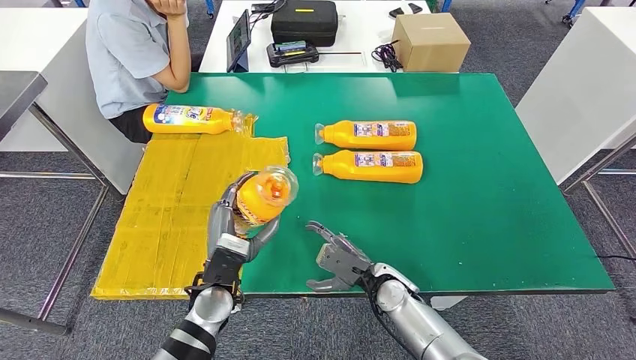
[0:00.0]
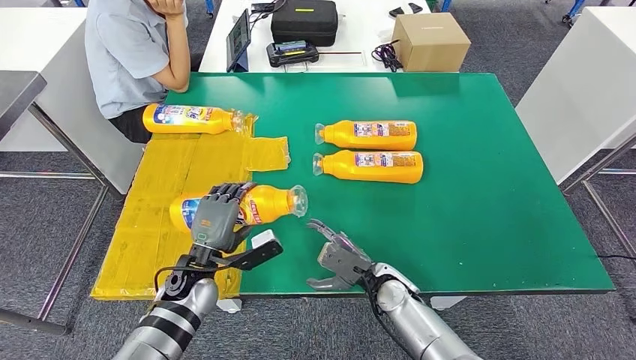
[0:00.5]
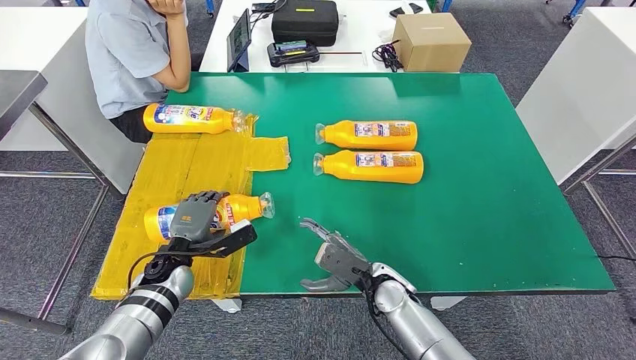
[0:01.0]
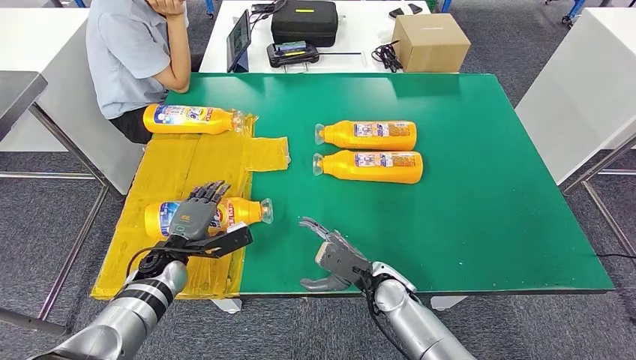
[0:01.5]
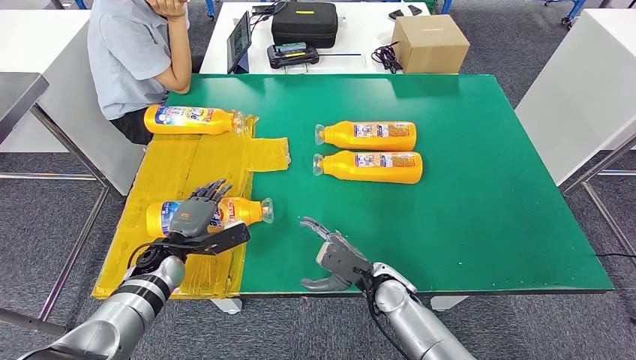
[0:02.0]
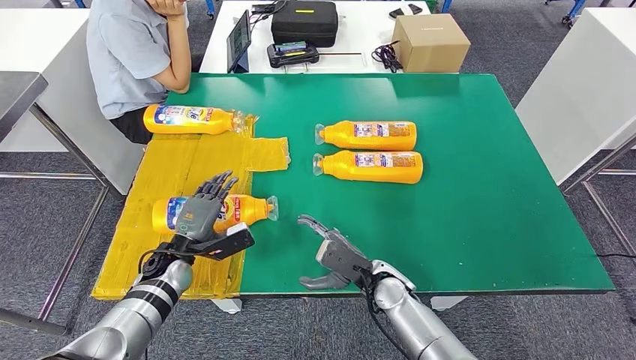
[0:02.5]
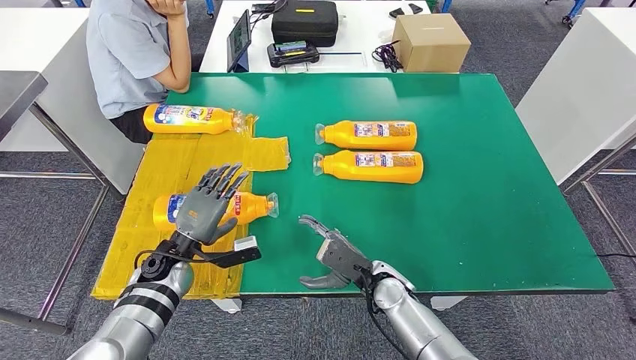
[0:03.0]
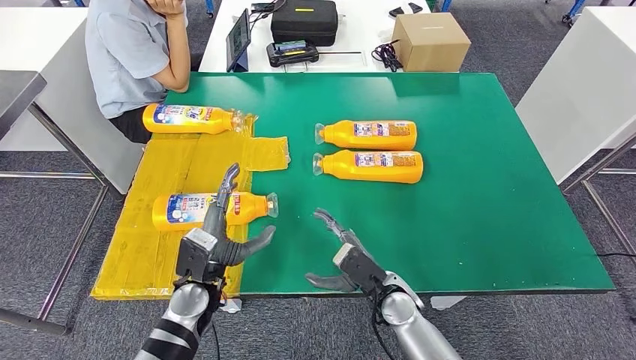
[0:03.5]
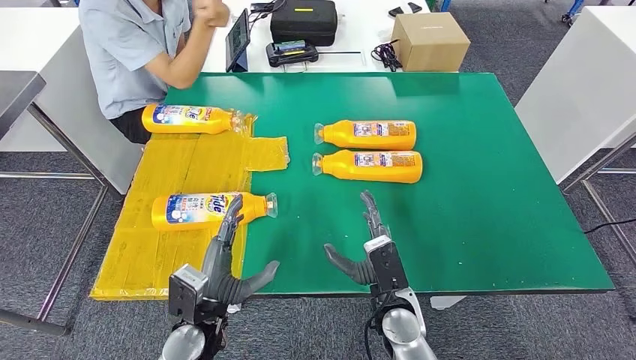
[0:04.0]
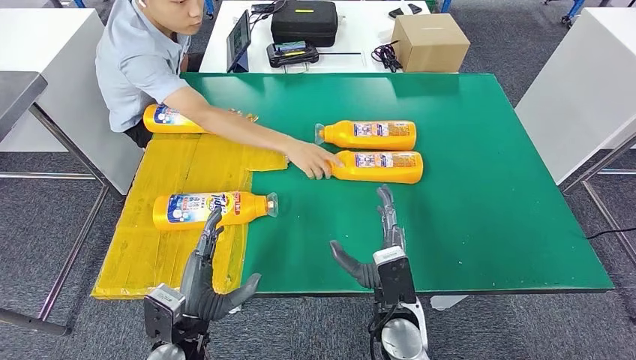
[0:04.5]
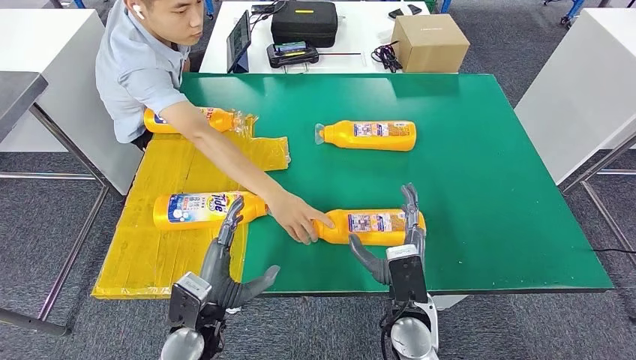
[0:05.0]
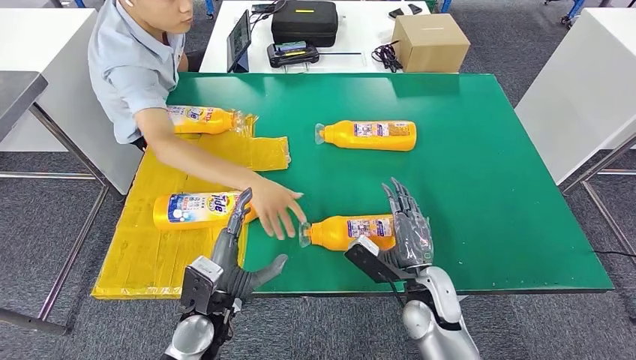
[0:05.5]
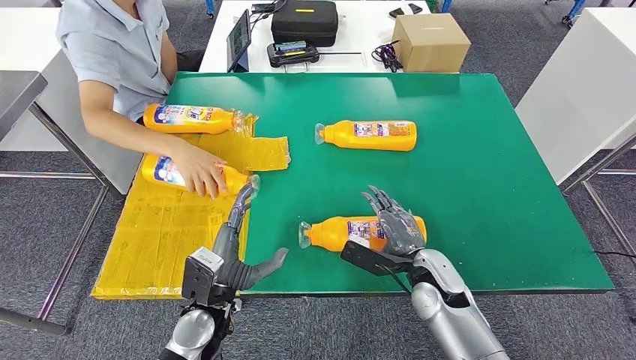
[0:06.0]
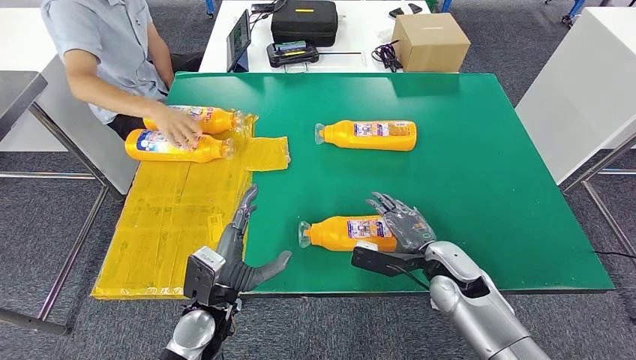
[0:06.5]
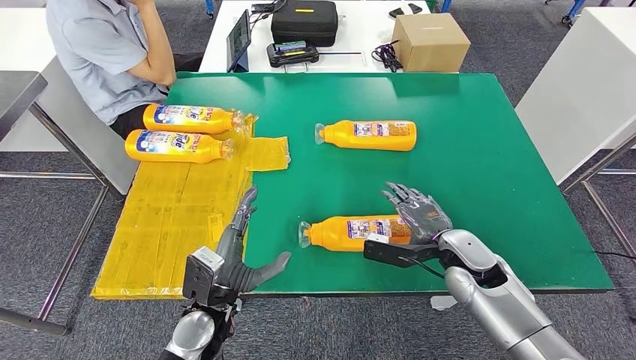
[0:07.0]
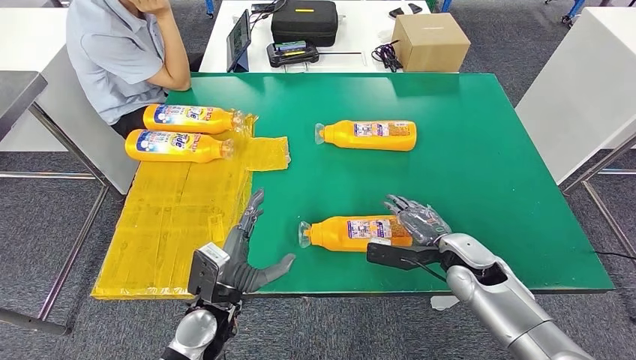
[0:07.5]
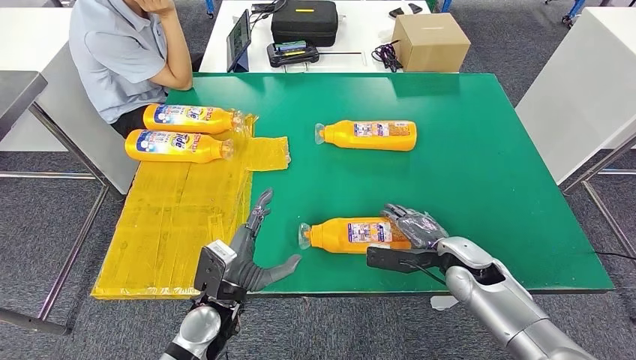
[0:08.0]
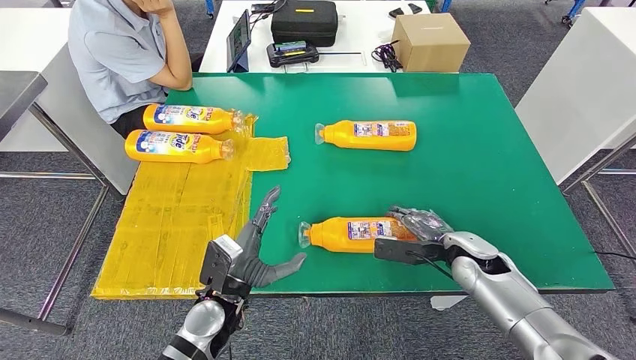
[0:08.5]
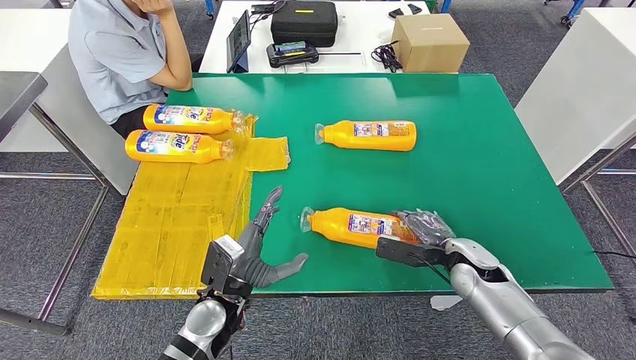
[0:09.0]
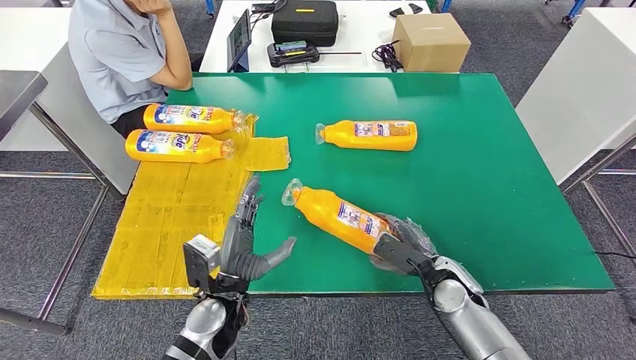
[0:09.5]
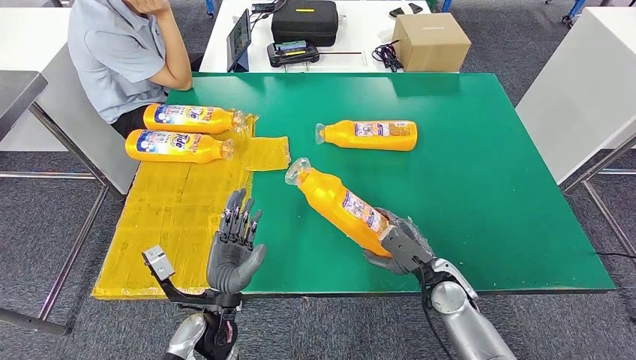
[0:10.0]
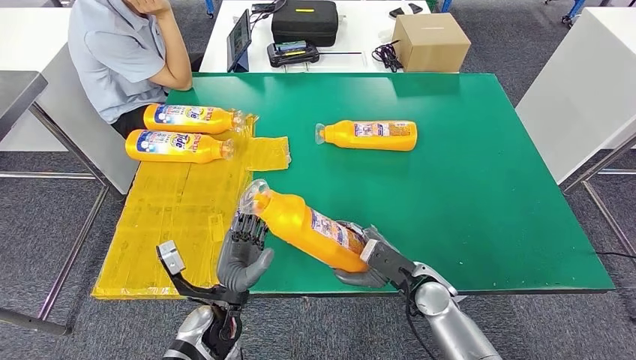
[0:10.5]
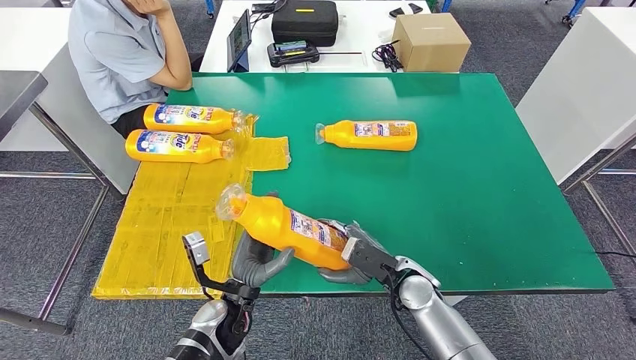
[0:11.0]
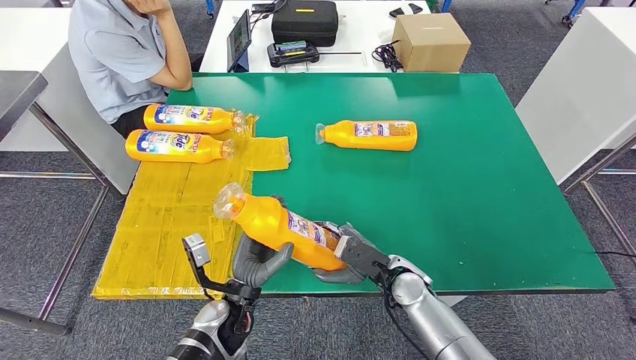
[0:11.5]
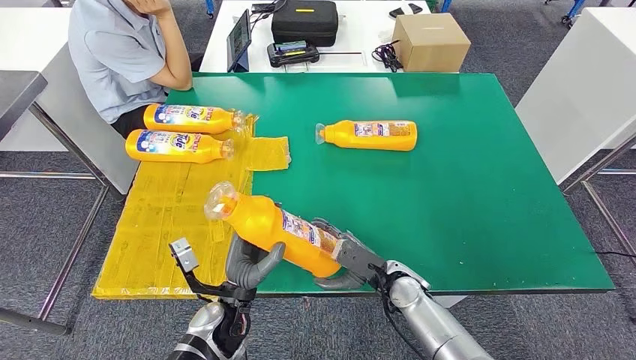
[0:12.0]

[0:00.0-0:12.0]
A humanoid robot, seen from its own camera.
Step, 0:02.0 to 0:10.0: Pick up the fast-moving consumer goods bottle from the table.
0:00.0 to 0:02.0: The left hand shifts about 15 cm to the left and forward.
0:02.0 to 0:04.0: The right hand travels backward by approximately 5 cm. The left hand goes some 15 cm backward and to the right.
0:06.0 to 0:08.0: The right hand shifts roughly 5 cm to the right.
0:08.0 to 0:10.0: The right hand moves approximately 5 cm.
0:10.0 to 0:12.0: The right hand moves to the left, roughly 5 cm.

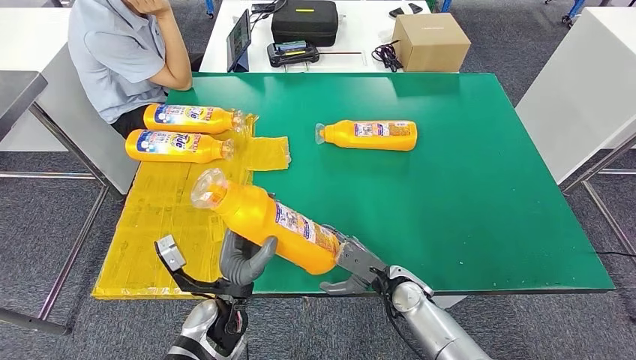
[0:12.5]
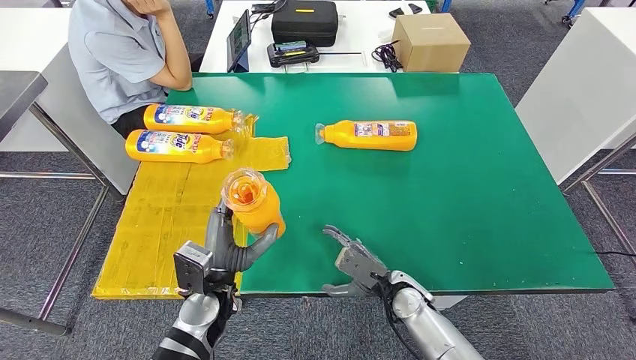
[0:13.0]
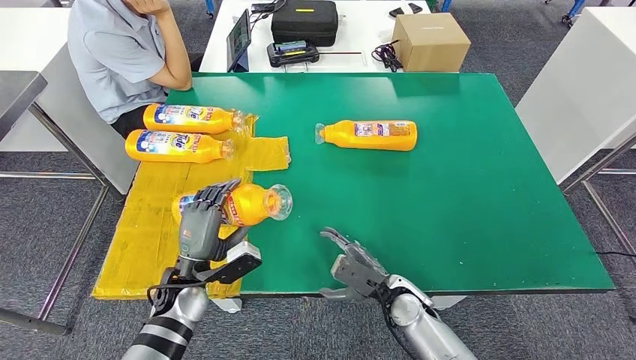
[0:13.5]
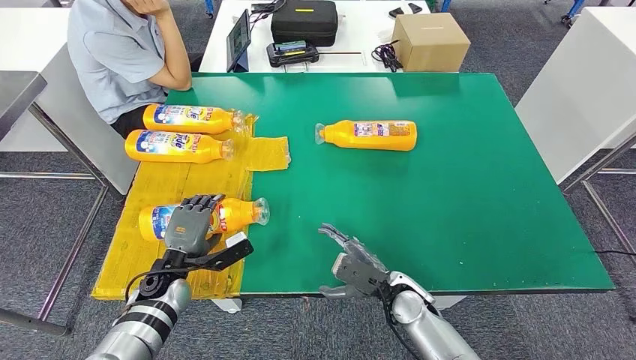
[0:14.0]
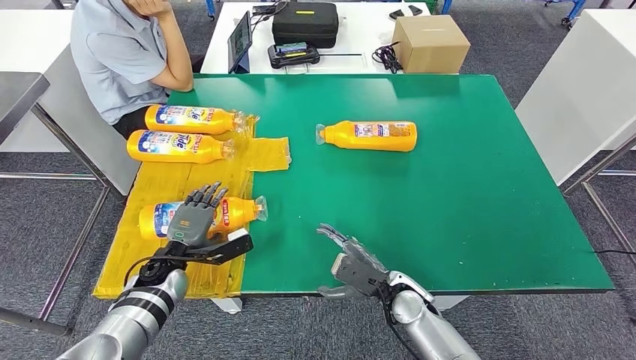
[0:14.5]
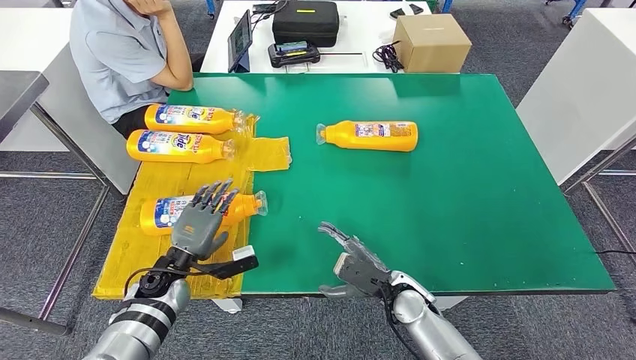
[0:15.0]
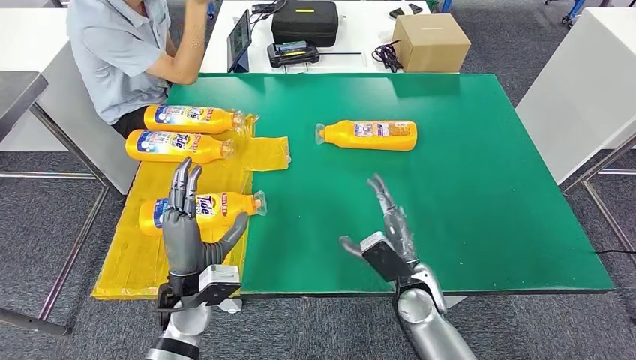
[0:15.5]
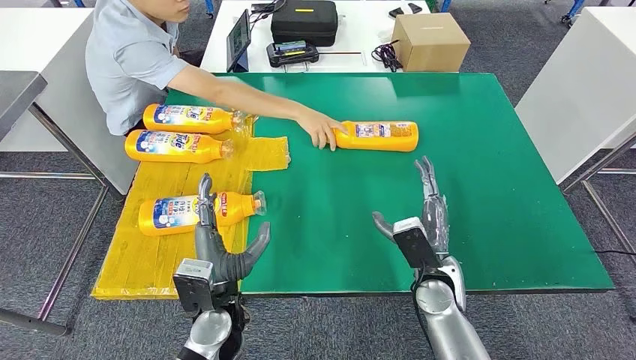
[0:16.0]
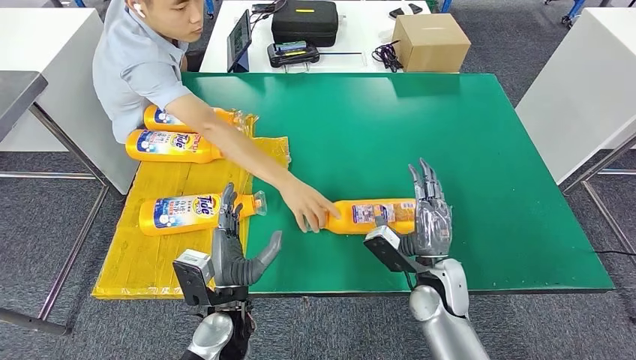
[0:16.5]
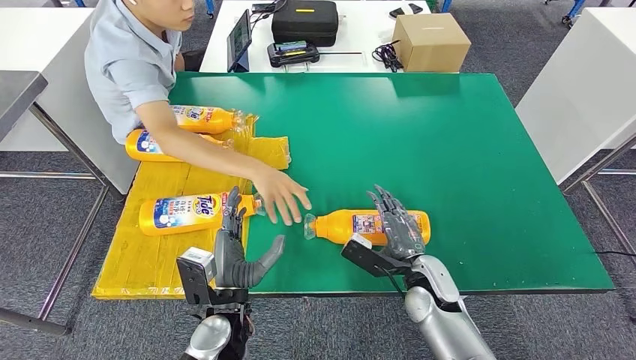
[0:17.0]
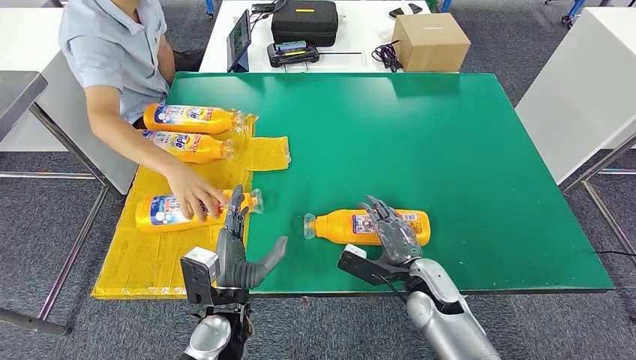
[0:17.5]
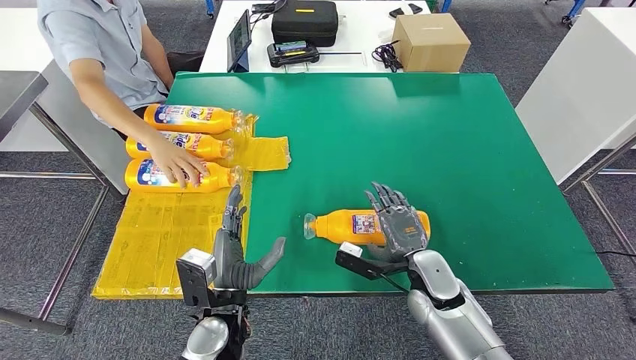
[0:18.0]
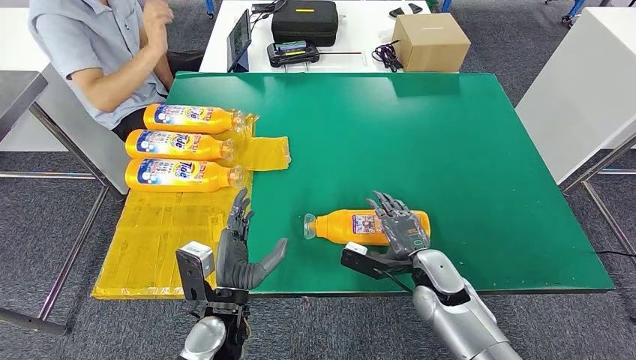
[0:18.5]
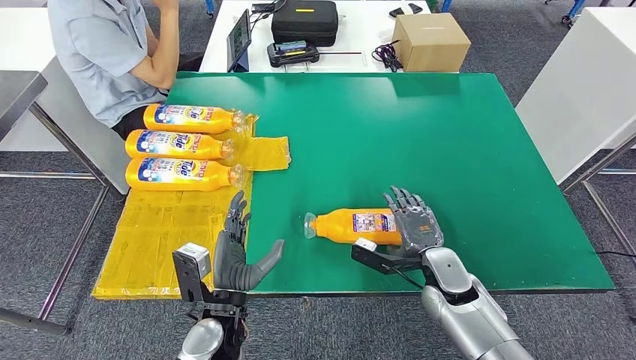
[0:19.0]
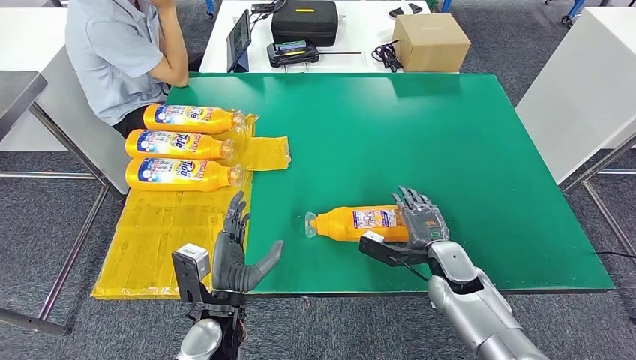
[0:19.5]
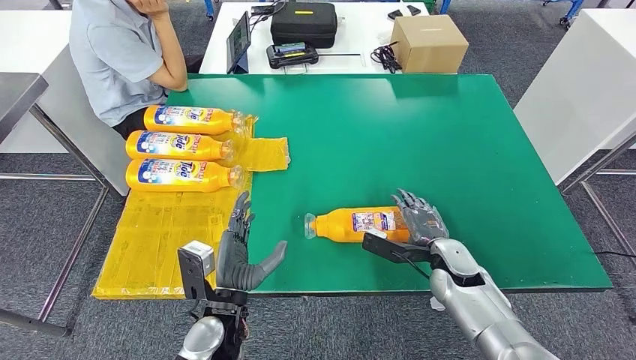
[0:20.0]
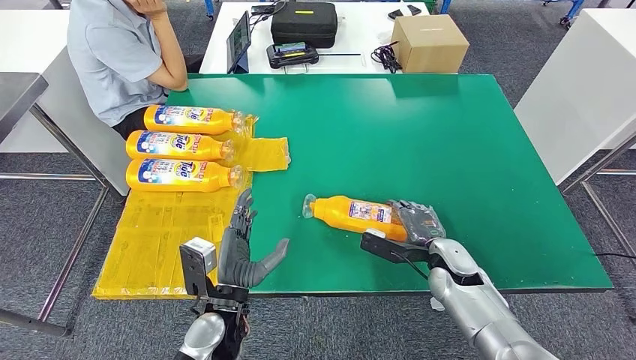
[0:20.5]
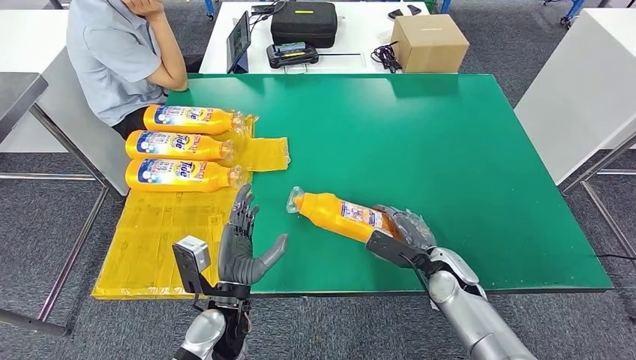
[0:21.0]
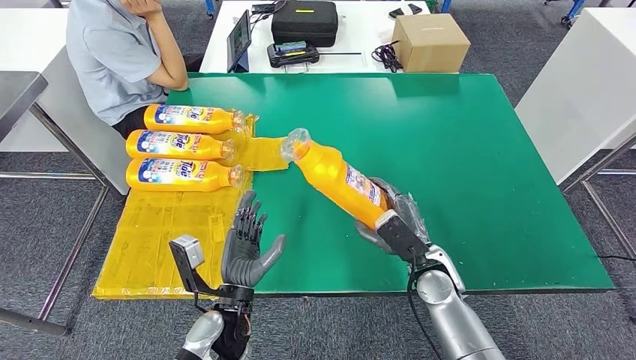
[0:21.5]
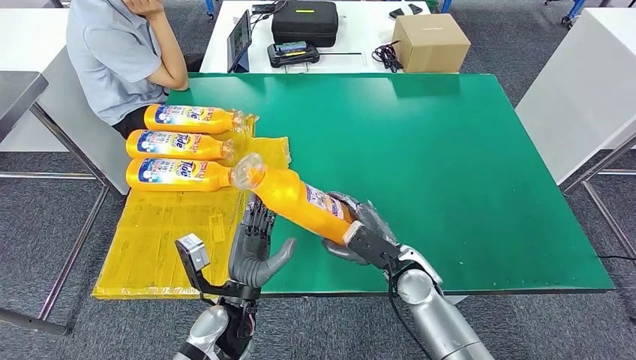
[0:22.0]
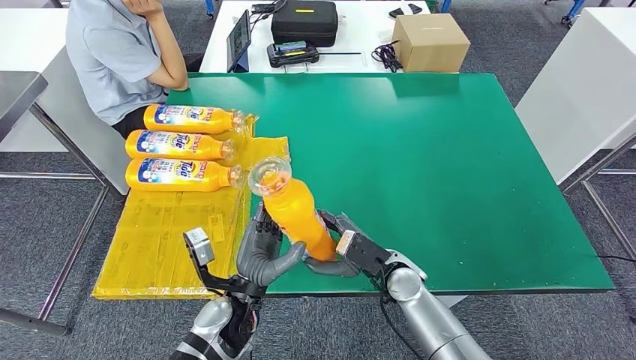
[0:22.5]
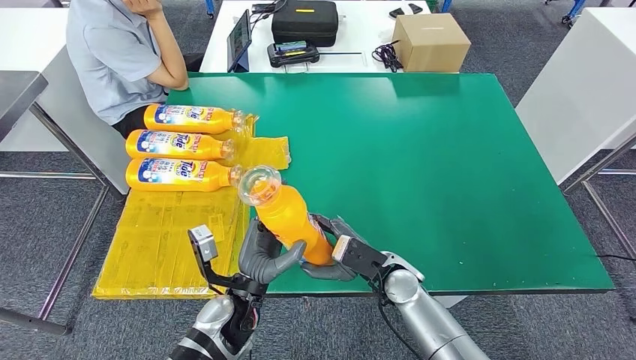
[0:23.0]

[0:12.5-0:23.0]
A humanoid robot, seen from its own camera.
Step, 0:12.5 to 0:15.0: Flip the fast-moving consumer goods bottle to the front side.
Step, 0:15.5 to 0:22.0: Pick up the fast-moving consumer goods bottle from the table.
0:12.5 to 0:14.5: The left hand heads to the left and forward, covering about 15 cm.
0:21.0 to 0:23.0: The right hand goes some 10 cm to the left.
